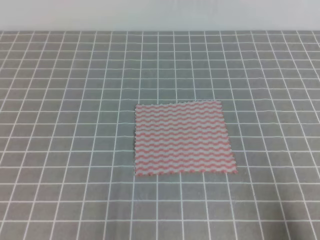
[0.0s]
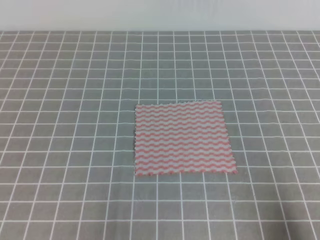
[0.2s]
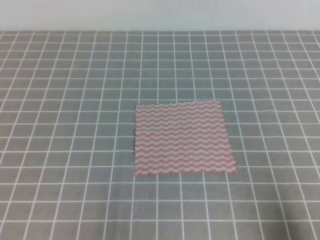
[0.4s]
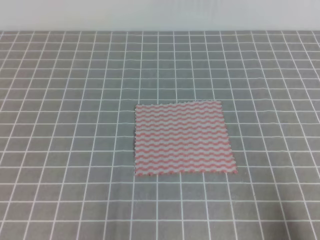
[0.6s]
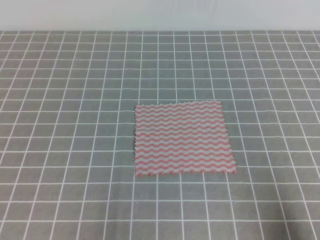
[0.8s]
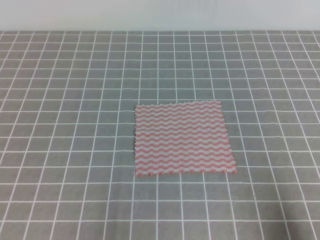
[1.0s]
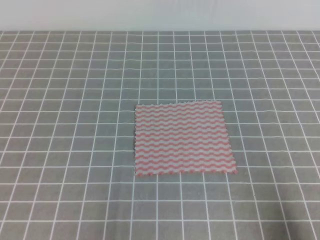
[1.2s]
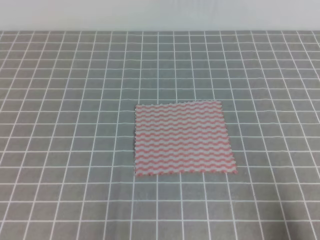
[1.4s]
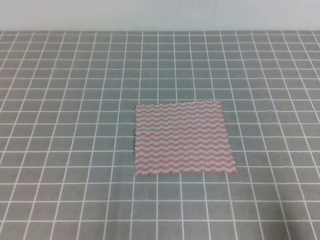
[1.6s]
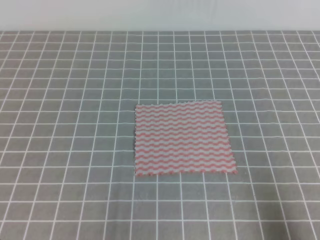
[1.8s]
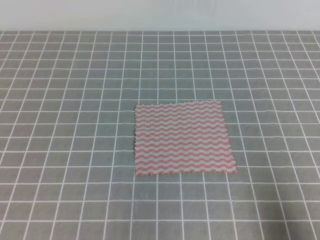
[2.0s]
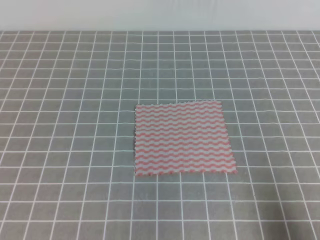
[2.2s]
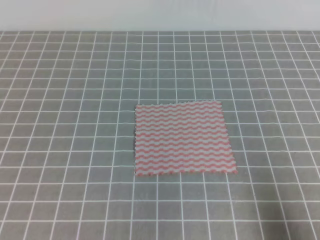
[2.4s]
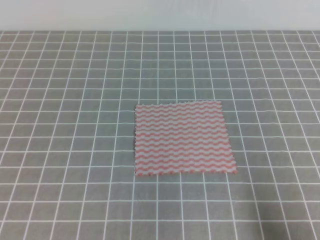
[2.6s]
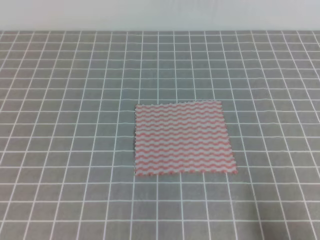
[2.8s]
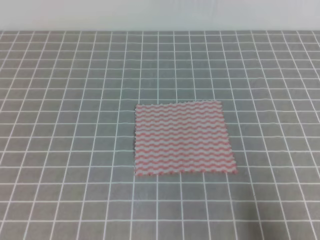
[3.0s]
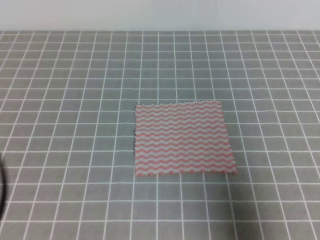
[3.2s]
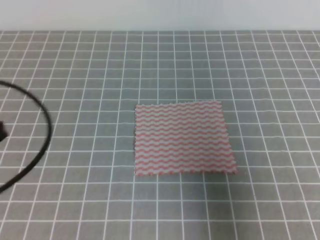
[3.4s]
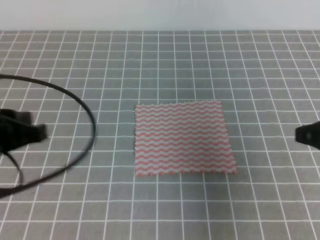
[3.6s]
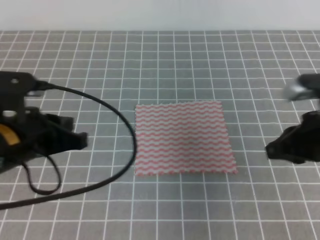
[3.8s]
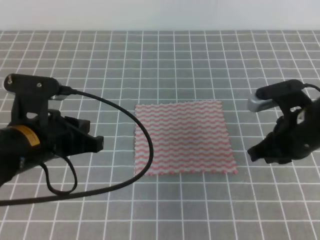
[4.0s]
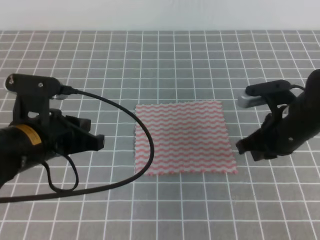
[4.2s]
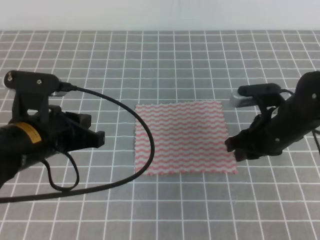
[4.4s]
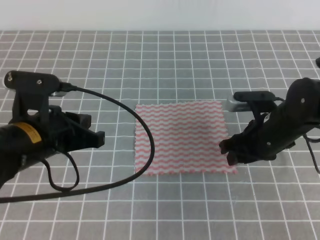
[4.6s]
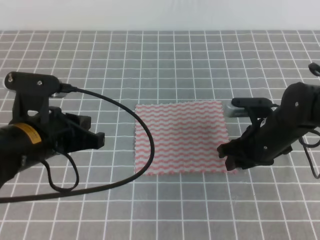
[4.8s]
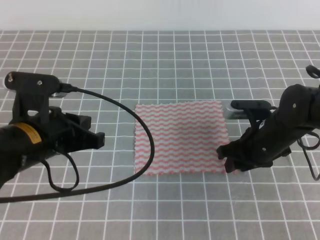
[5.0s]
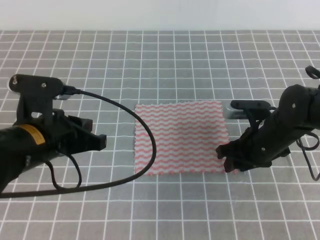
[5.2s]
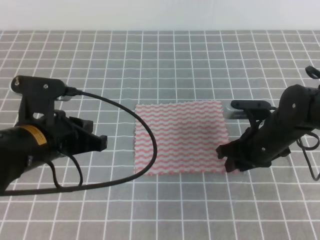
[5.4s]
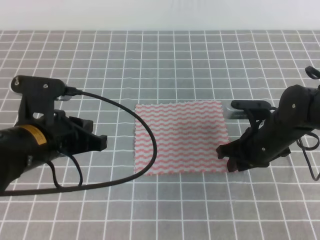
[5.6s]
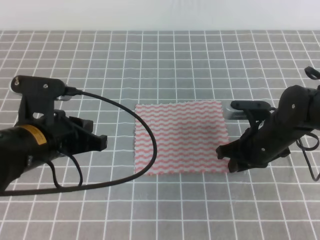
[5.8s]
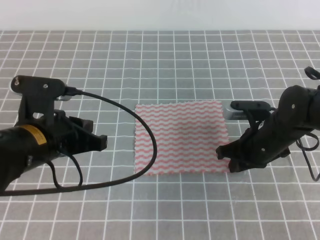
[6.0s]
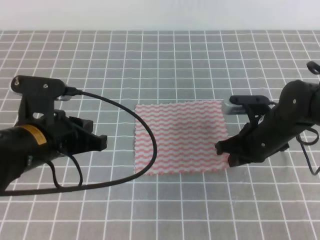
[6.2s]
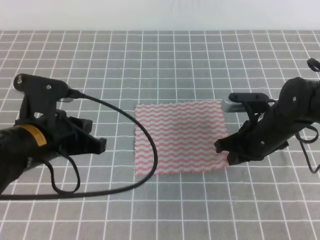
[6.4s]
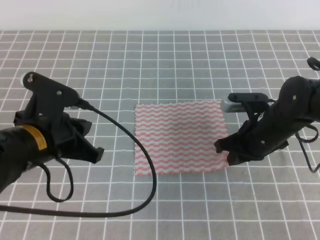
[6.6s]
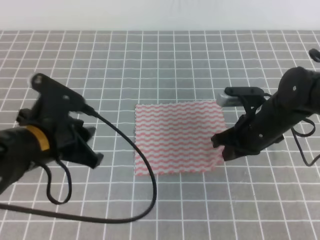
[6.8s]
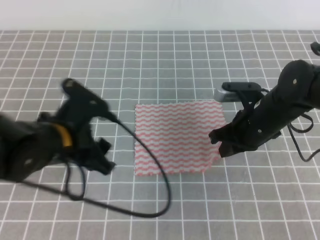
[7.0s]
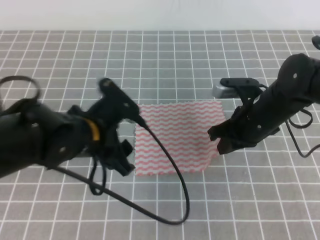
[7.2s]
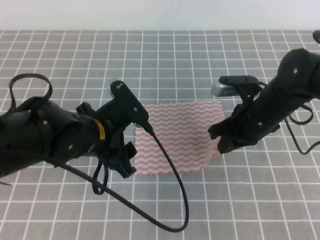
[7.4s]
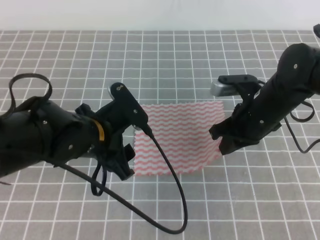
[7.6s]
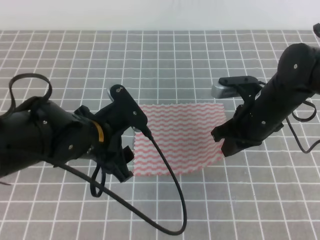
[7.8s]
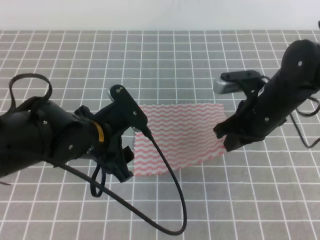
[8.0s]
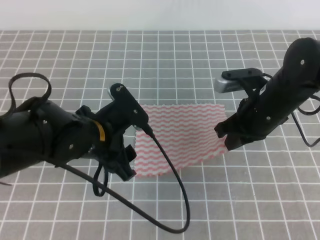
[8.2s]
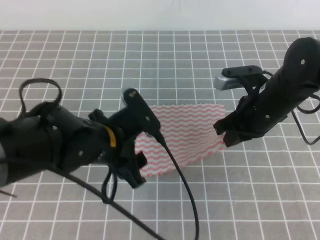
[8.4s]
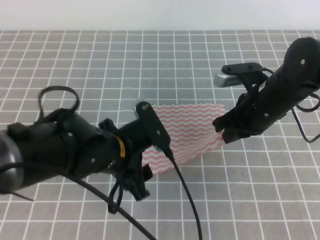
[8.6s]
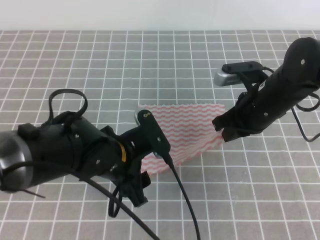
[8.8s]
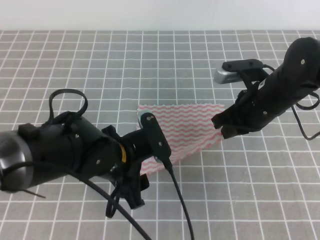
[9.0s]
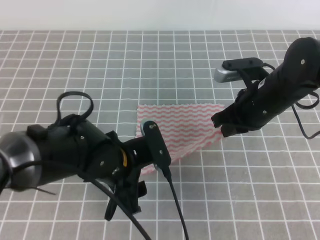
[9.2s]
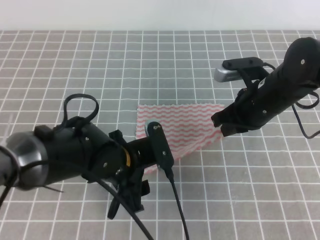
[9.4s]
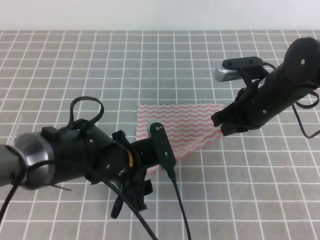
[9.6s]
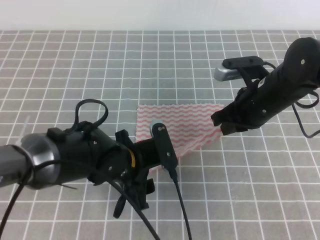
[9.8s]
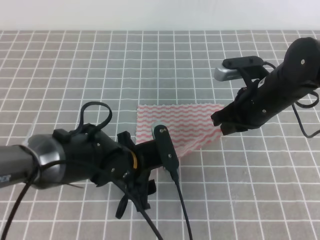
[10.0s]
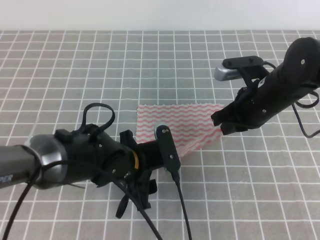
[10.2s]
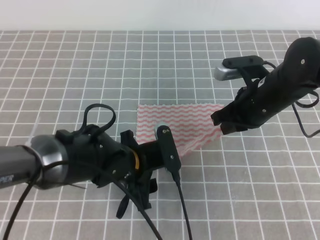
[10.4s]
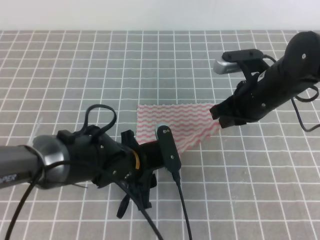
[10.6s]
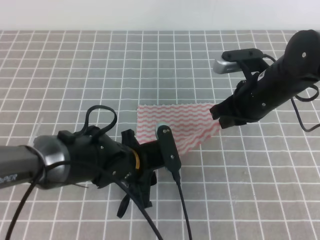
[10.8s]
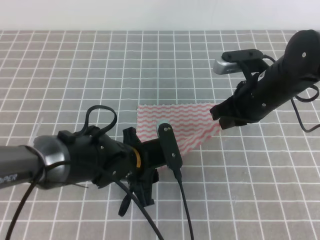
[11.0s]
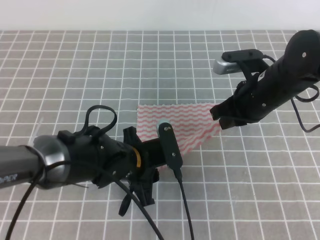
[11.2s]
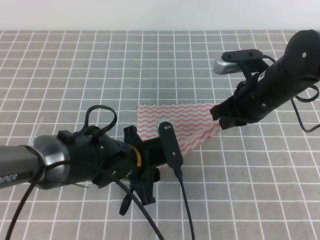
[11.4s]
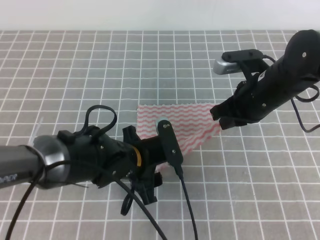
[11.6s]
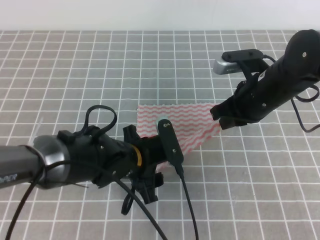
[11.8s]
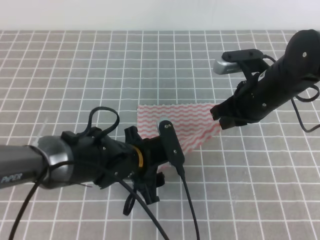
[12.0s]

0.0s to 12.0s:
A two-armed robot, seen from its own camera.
3.0s to 4.4s: The left gripper goes about 20 cm forward and to the right; the right gripper moves forward and to the left, approximately 25 cm, and opens its fingers.
4.4s to 6.0s: The right gripper closes its fingers.
6.0s to 7.6s: The right gripper moves upward, about 5 cm; the left gripper is displaced to the right by some 5 cm, and opens.
9.0s to 10.4s: There are only small adjustments of the grippers.
10.4s to 12.0s: The left gripper closes, then reopens.

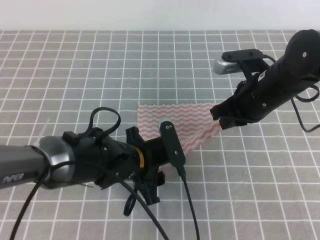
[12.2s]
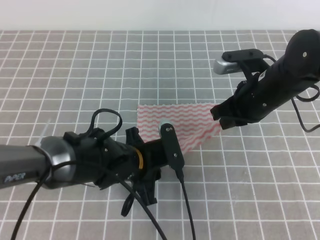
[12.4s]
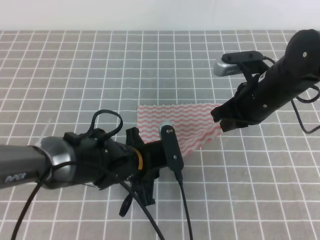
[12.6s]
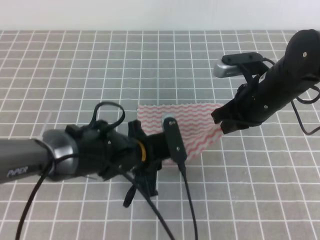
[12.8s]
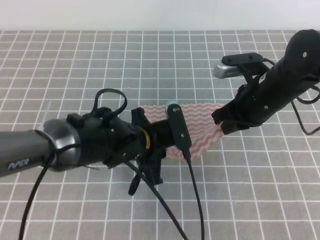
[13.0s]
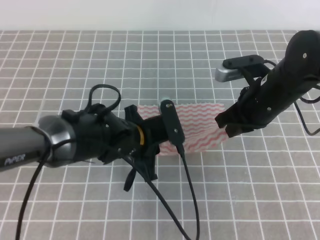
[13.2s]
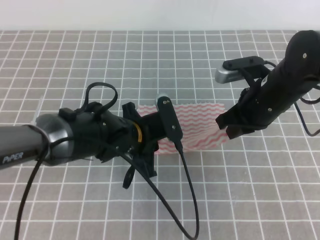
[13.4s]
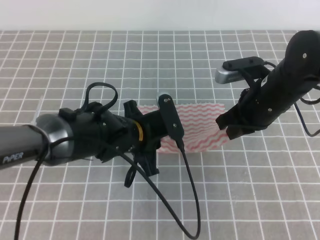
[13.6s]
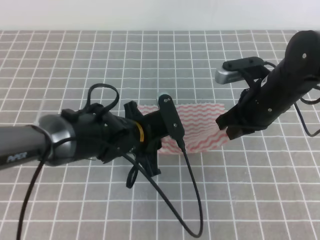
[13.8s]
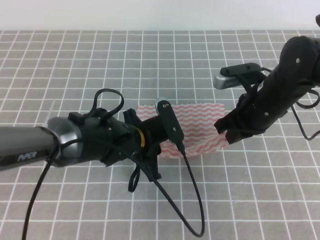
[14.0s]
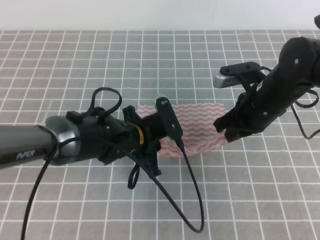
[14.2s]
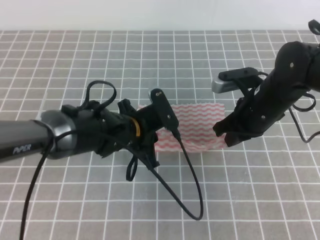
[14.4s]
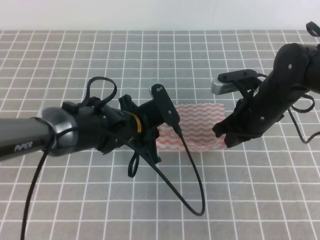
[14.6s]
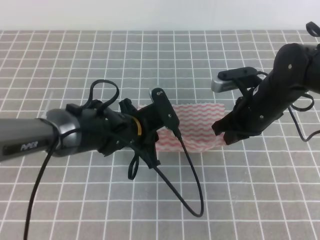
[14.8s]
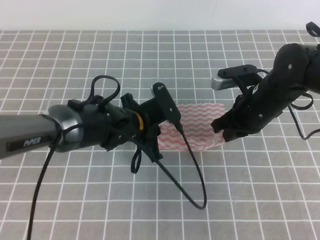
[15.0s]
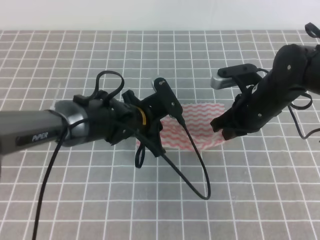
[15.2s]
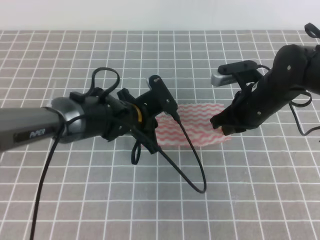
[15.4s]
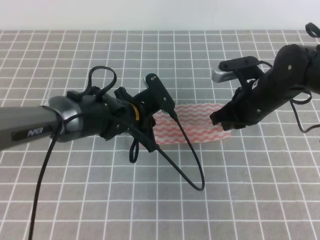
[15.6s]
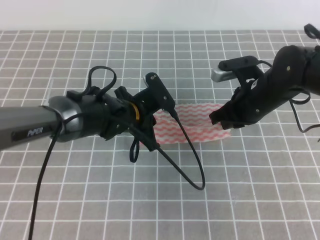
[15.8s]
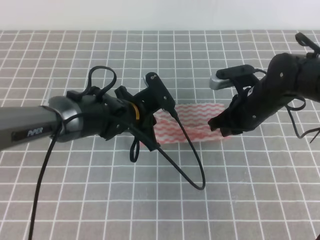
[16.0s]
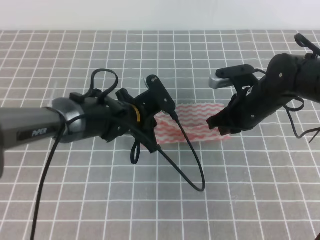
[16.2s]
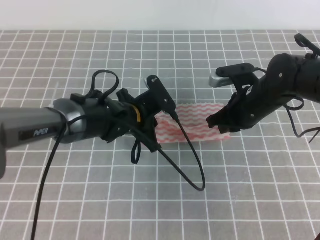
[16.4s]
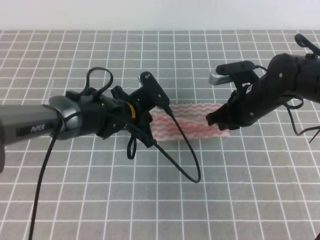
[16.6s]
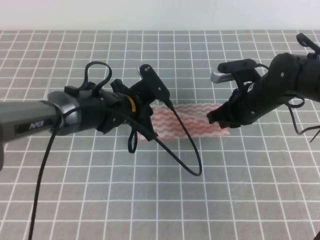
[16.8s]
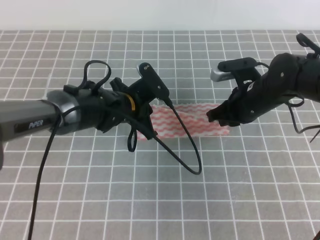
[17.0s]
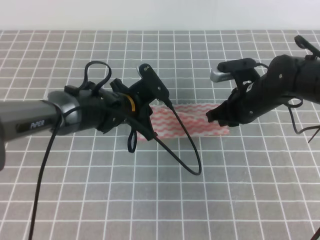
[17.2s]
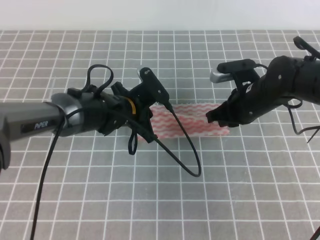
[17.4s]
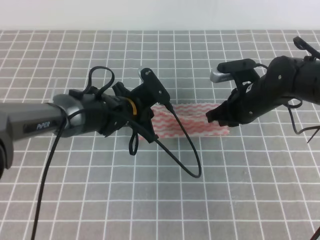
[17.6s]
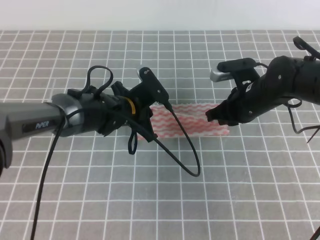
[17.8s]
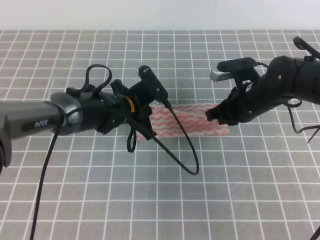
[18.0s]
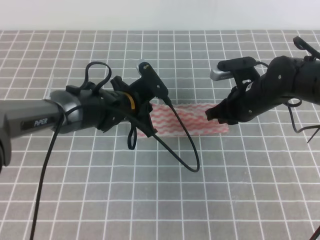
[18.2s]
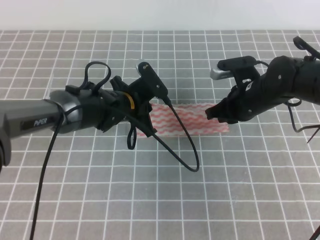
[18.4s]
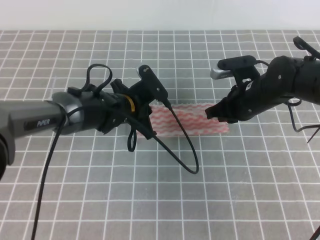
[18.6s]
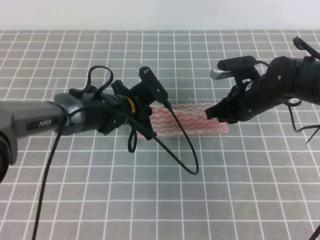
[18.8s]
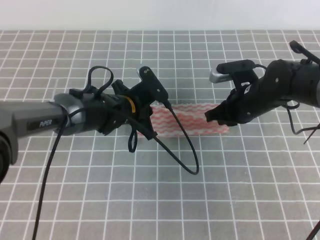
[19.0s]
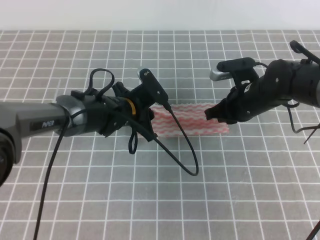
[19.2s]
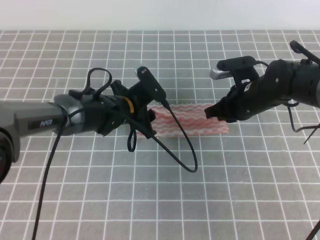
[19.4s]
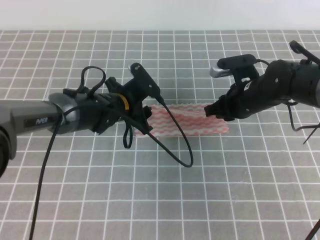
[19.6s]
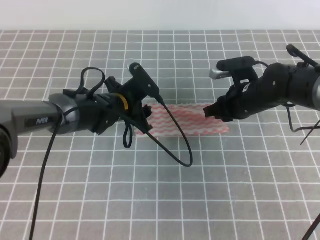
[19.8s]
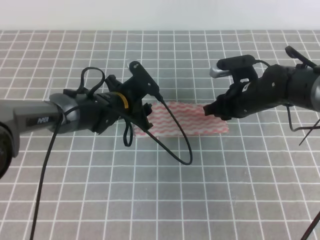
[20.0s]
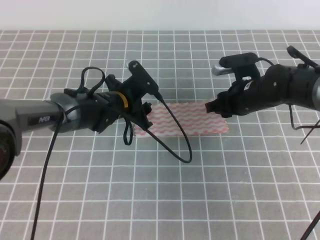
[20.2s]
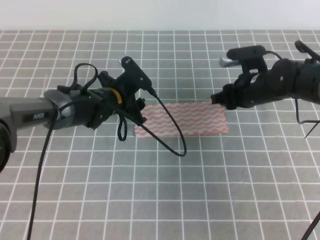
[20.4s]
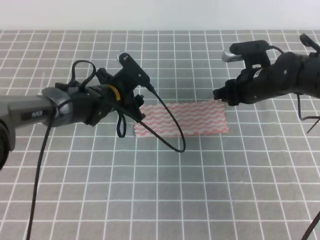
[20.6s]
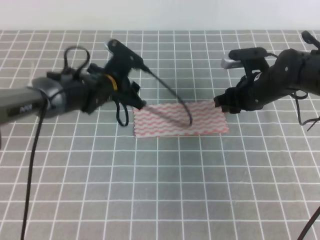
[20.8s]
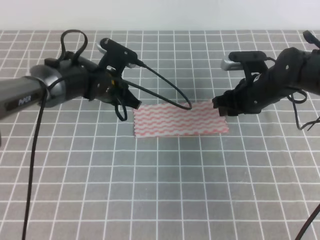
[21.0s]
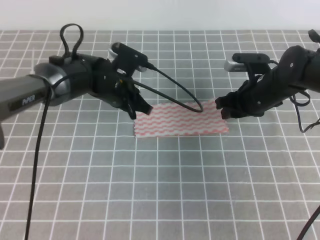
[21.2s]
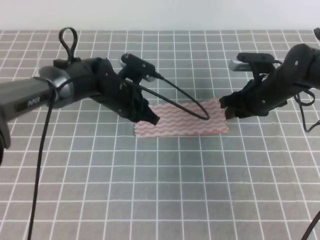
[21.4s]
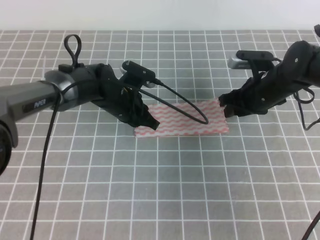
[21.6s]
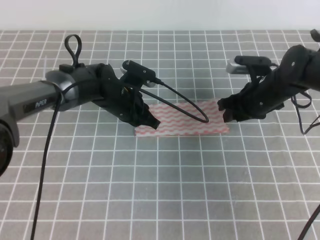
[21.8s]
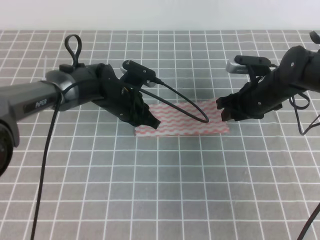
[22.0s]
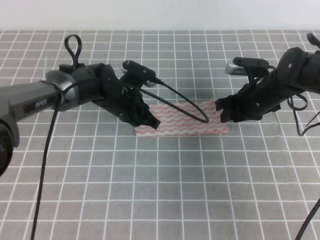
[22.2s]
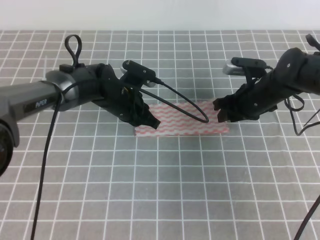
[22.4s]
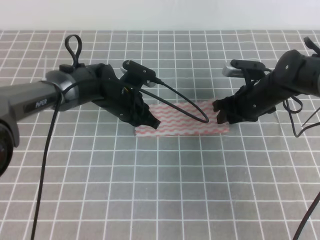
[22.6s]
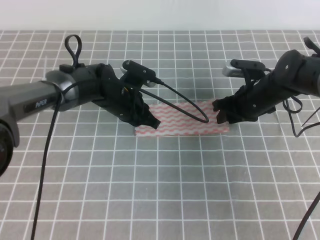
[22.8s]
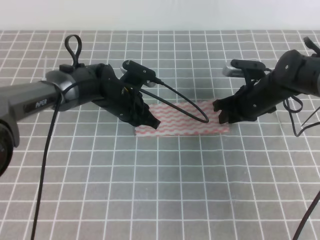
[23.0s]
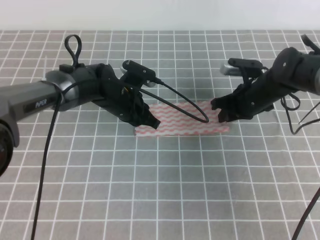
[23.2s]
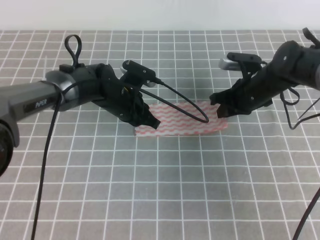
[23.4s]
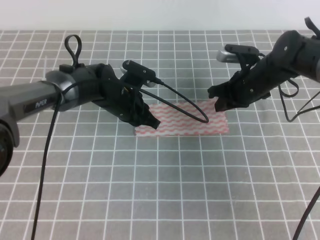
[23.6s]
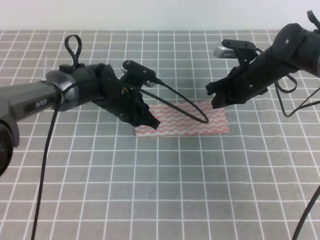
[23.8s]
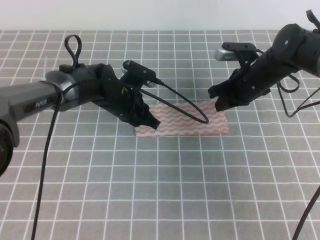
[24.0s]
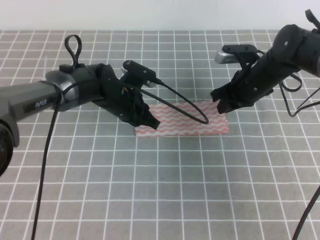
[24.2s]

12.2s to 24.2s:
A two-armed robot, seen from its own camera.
12.2s to 13.8s: The left gripper closes up.
13.8s to 15.2s: The grippers make only small movements.
15.2s to 18.2s: The grippers move only a little.
18.2s to 19.8s: The right gripper opens up. Meanwhile the left gripper opens its fingers.
19.8s to 21.2s: The left gripper closes its fingers; the right gripper opens.
21.2s to 22.6s: There are only small adjustments of the grippers.
22.6s to 24.2s: The right gripper closes up.
